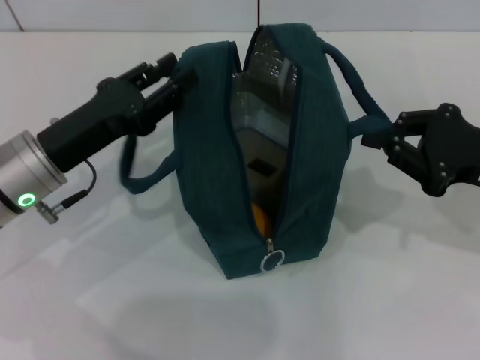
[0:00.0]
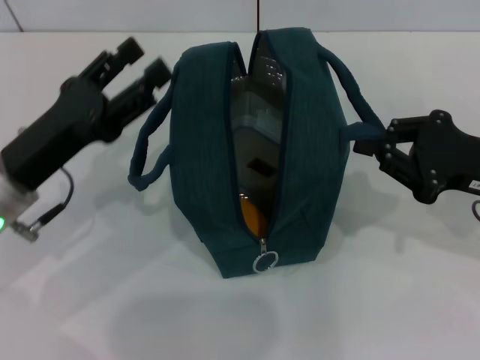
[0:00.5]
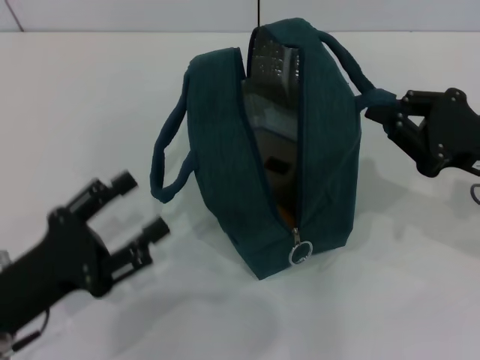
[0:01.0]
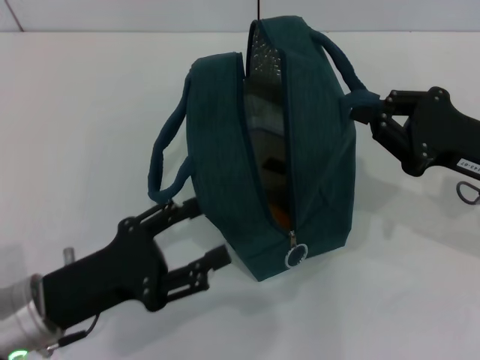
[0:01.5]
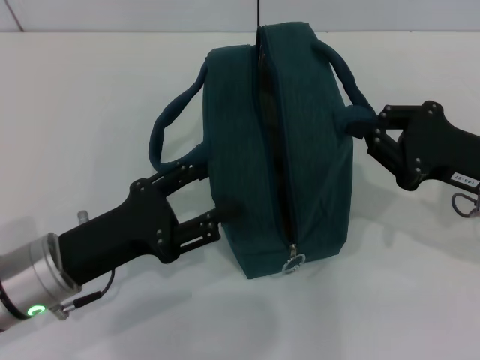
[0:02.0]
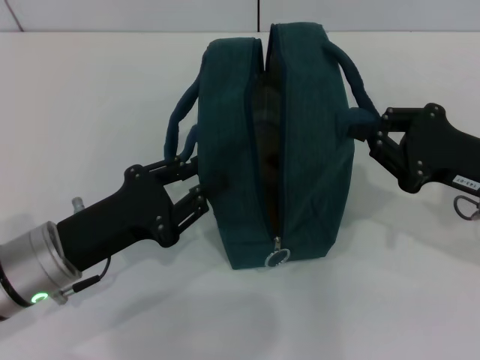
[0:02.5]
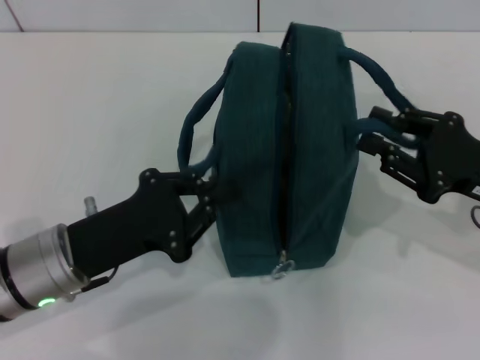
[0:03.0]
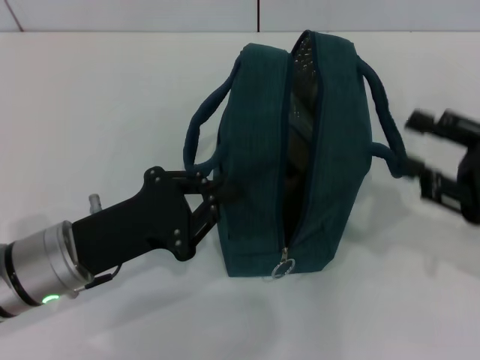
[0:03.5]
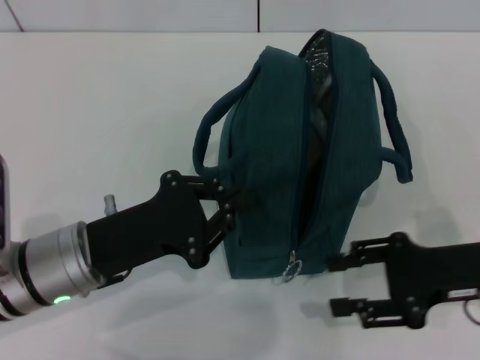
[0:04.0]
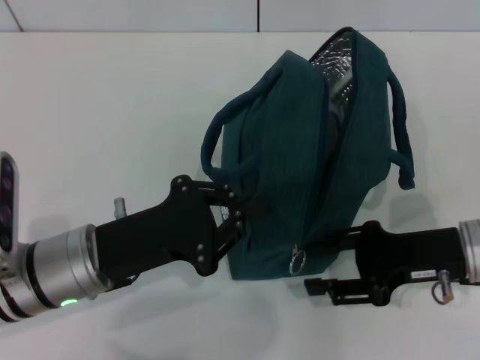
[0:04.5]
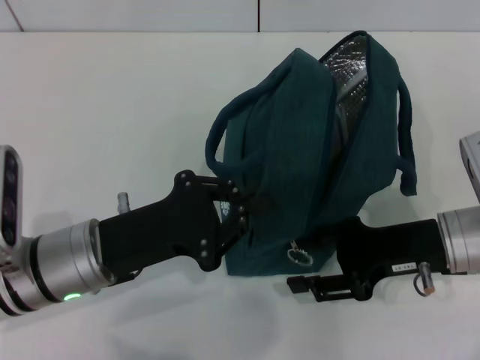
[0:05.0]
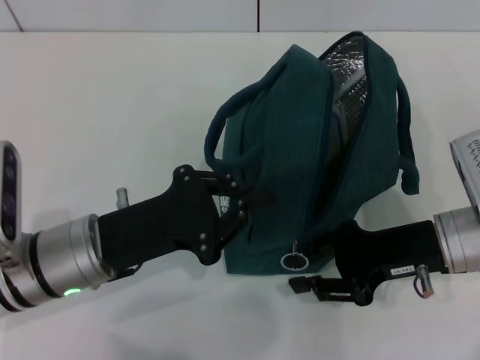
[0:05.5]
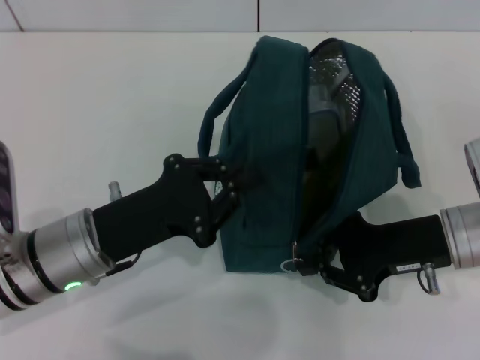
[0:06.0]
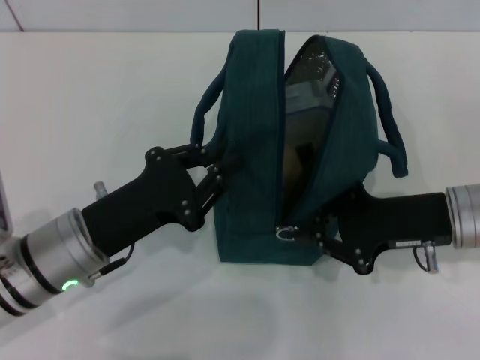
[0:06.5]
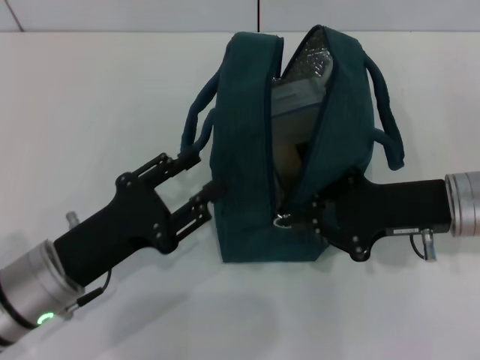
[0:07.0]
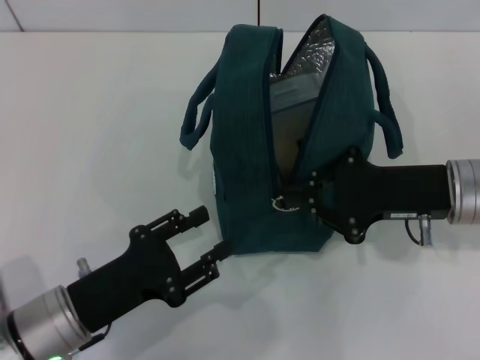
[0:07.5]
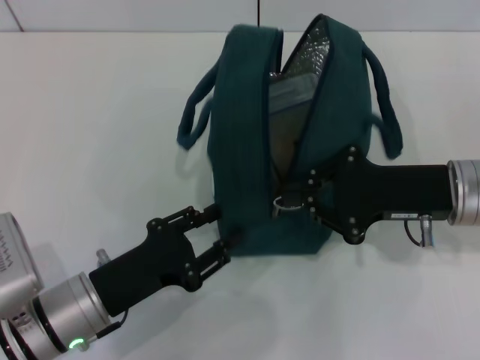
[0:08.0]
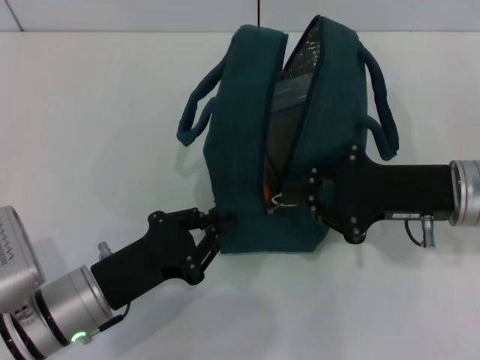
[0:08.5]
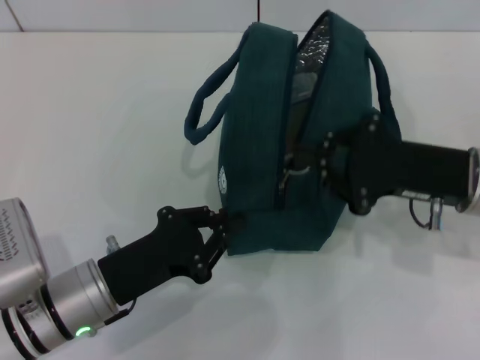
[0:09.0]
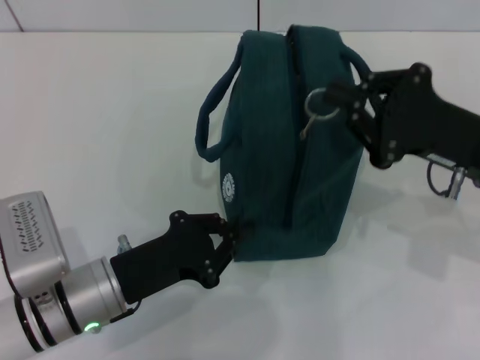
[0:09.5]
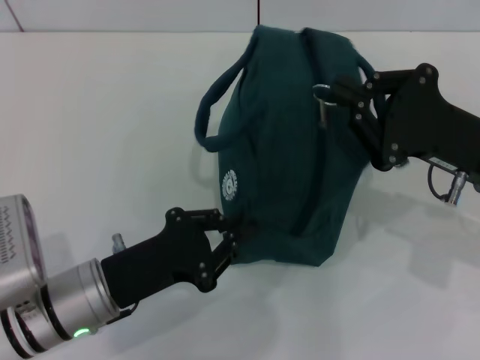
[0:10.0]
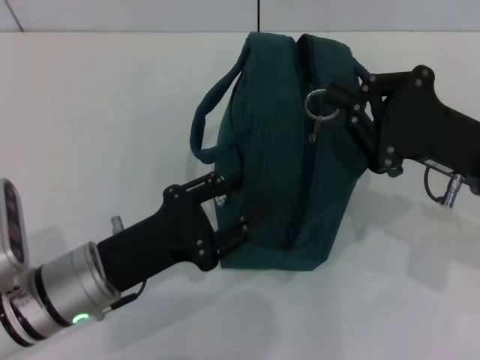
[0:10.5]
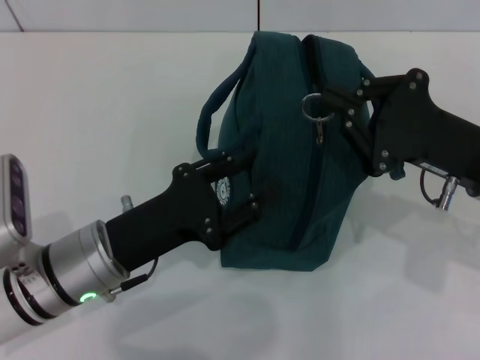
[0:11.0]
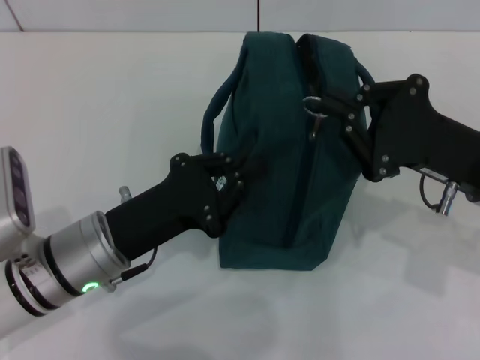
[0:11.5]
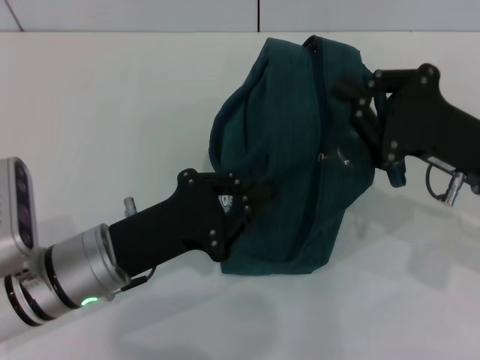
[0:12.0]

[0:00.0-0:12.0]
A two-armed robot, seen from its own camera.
Step, 0:00.5 to 0:03.0: Hold the lunch bag with your right hand.
0:00.0 to 0:02.0: The left gripper is displaced backward by roughly 5 cm, and opens its fingers.
0:02.0 to 0:04.0: The left gripper closes its fingers. The right gripper opens up.
0:04.0 to 0:06.0: The right gripper moves some 5 cm, and closes.
0:06.0 to 0:08.0: The left gripper travels downward by approximately 5 cm, and opens.
0:08.0 to 0:10.0: The left gripper closes up.
0:10.0 to 0:12.0: The left gripper opens, then closes once more.

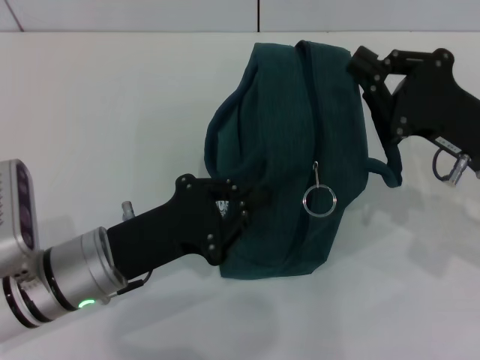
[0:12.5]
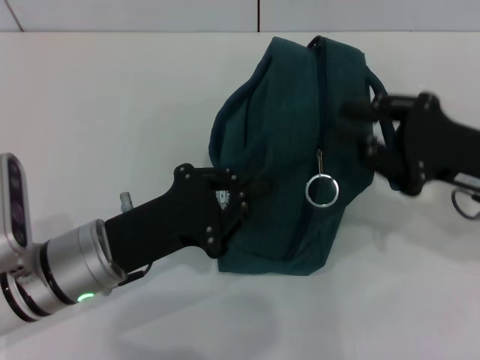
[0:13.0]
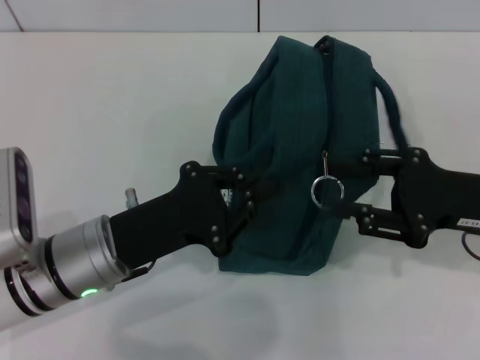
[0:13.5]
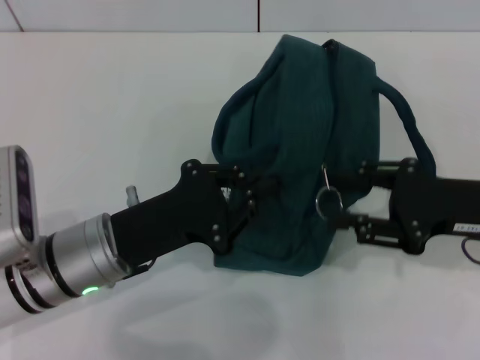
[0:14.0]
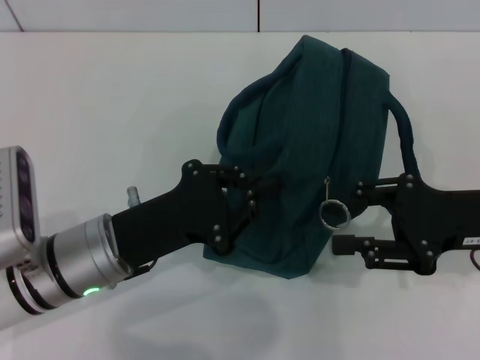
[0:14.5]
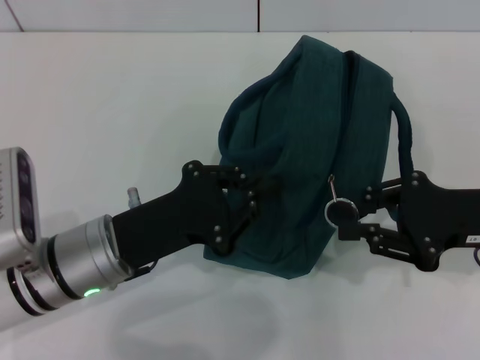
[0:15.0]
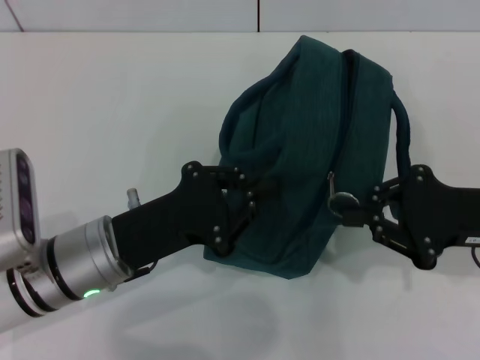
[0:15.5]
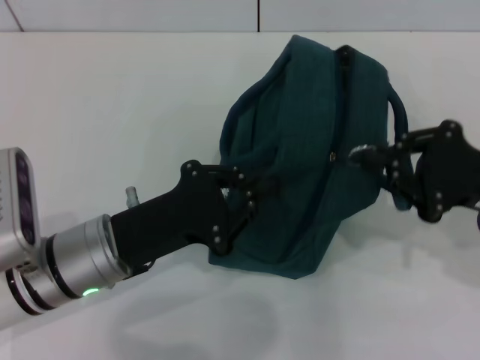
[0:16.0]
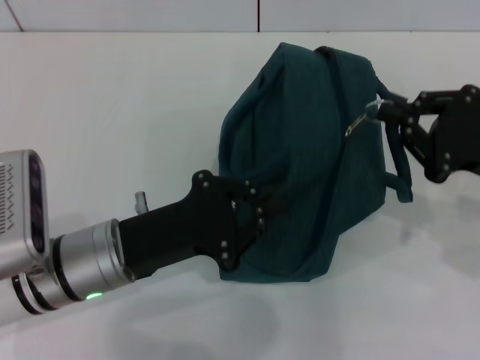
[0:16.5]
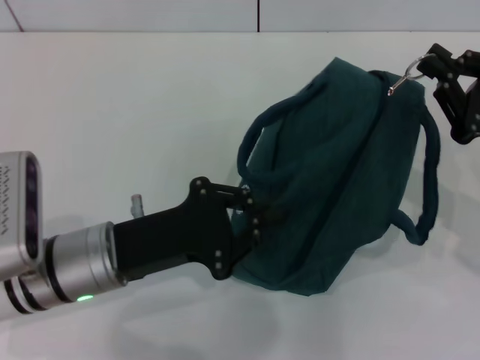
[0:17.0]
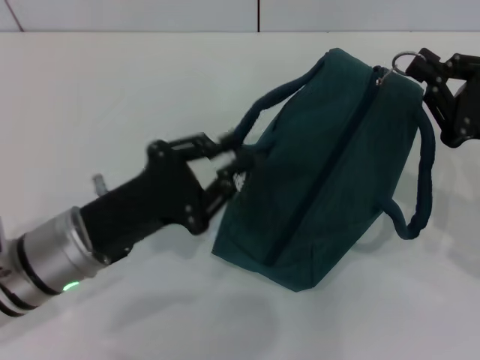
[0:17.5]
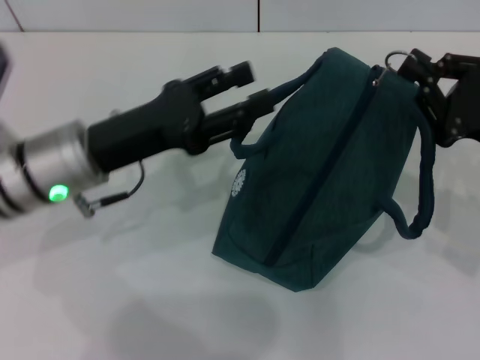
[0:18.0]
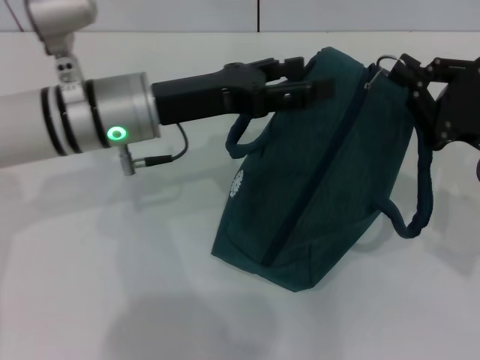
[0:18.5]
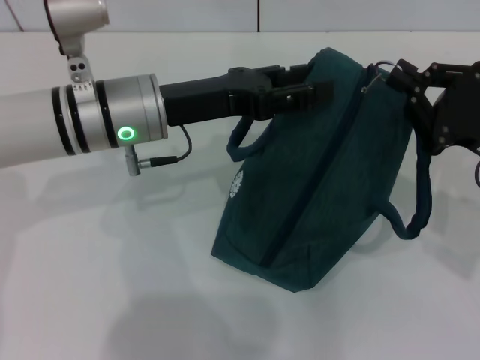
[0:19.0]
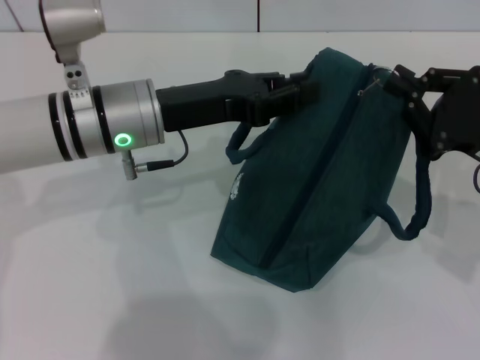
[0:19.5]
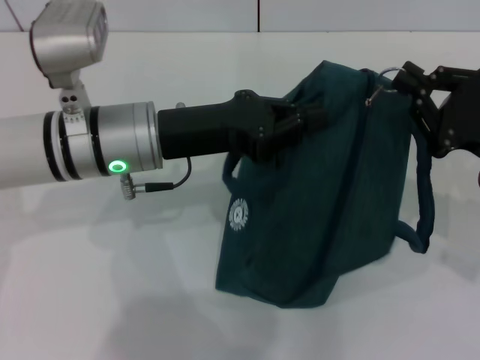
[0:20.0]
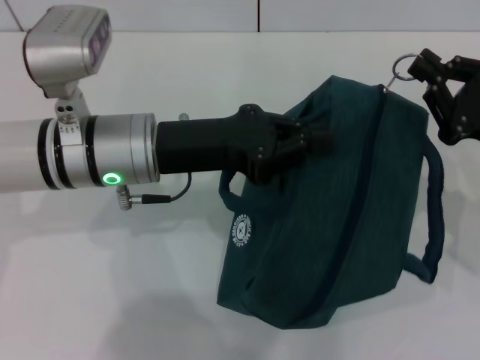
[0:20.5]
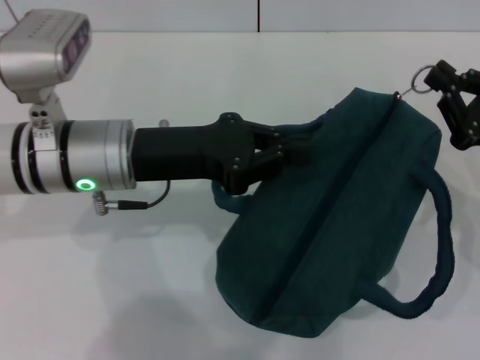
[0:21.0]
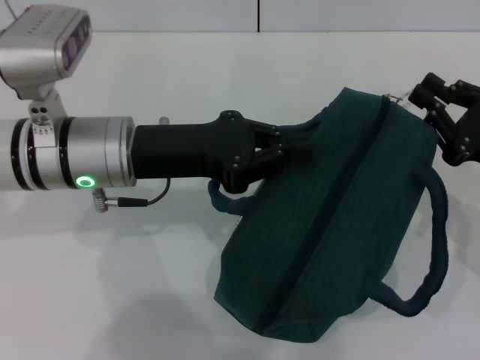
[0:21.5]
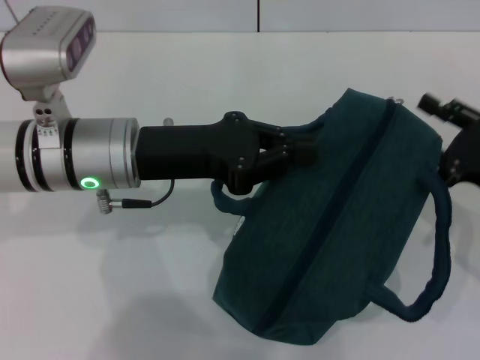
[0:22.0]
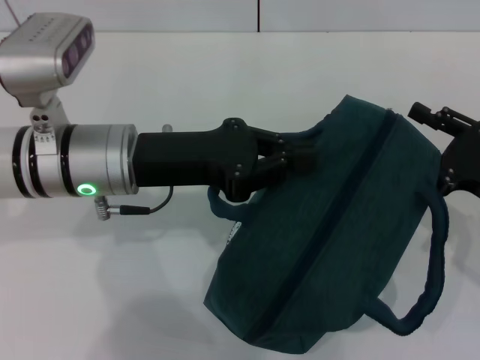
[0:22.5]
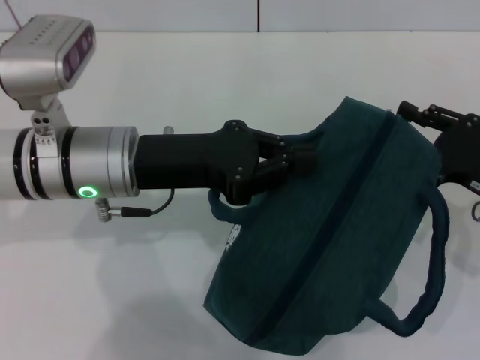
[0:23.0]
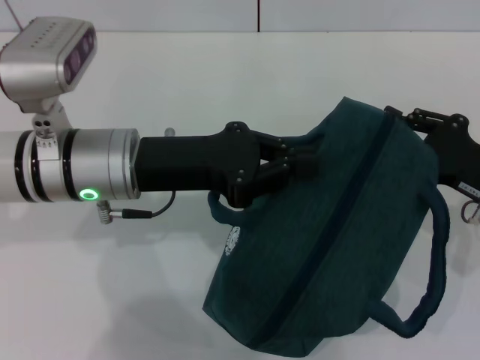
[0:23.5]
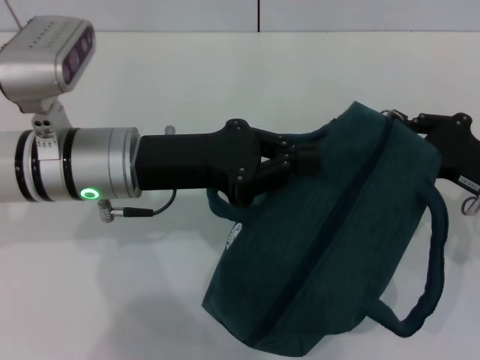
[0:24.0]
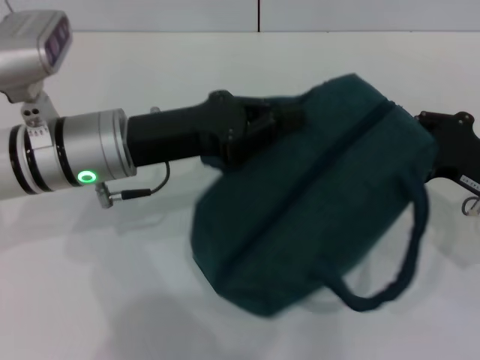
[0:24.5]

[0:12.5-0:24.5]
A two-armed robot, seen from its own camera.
0:12.5 to 0:14.5: The right gripper opens its fingers.
0:14.5 to 0:16.5: The right gripper closes.
0:16.5 to 0:18.5: The left gripper goes about 15 cm forward and upward, and opens.
0:18.5 to 0:20.5: The left gripper closes.
0:20.5 to 0:22.5: The right gripper opens its fingers.
0:22.5 to 0:24.5: The right gripper closes.

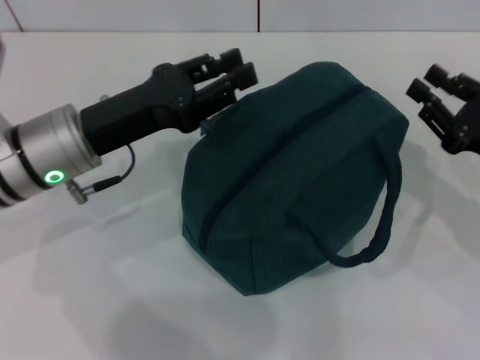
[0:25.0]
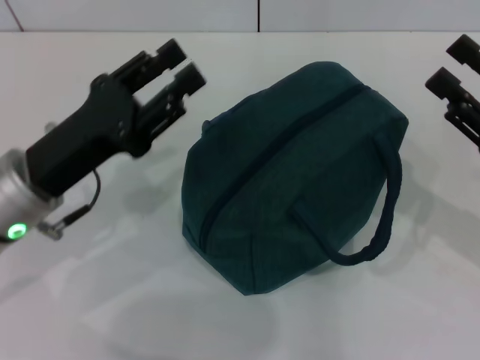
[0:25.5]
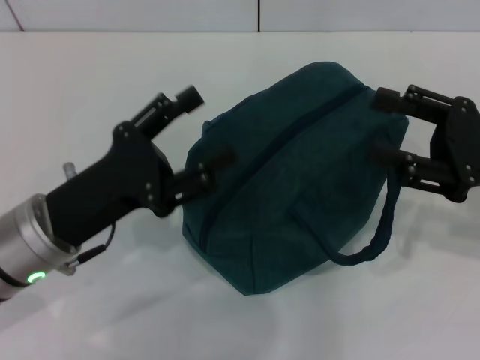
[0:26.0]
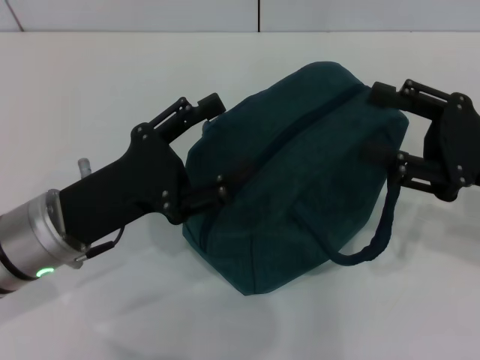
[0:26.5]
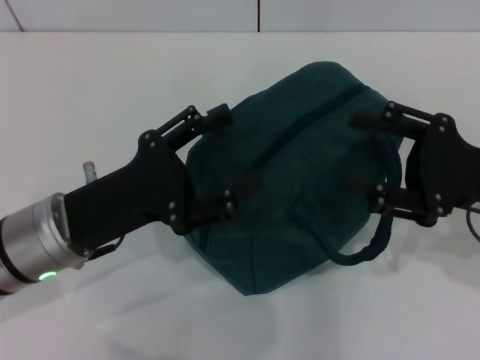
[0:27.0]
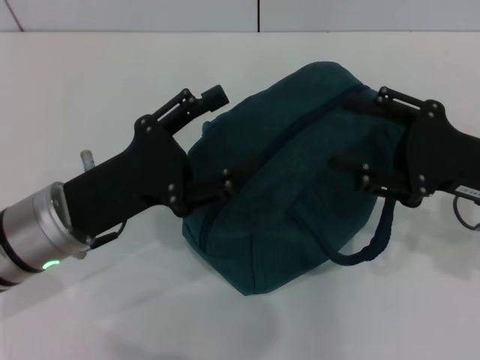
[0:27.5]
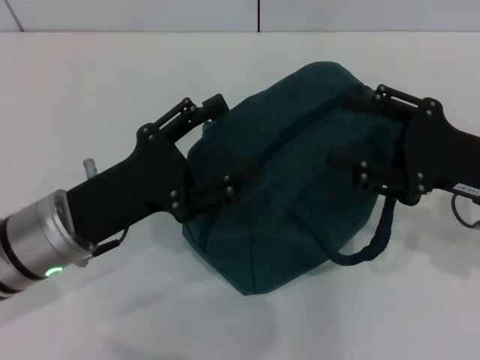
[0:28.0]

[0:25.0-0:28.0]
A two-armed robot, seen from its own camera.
0:25.0 to 0:26.5: The right gripper is displaced upward by approximately 5 cm, and opens; the left gripper goes some 5 cm backward, and opens up.
0:26.5 to 0:28.0: The grippers move only a little.
